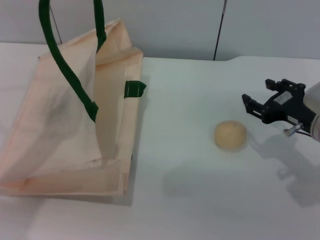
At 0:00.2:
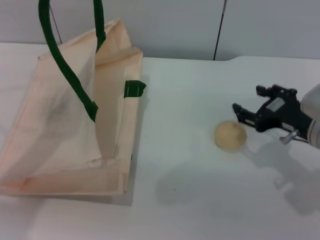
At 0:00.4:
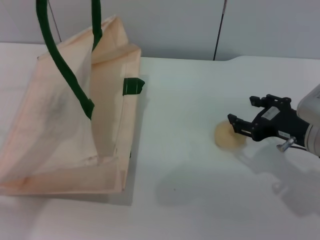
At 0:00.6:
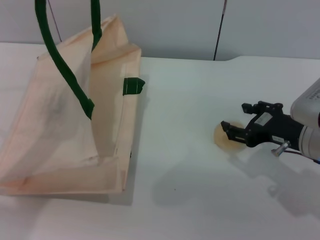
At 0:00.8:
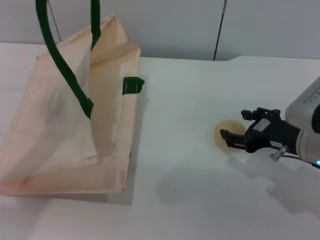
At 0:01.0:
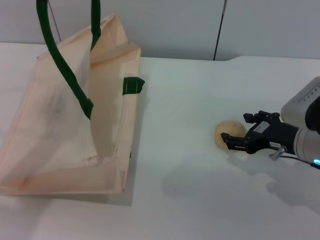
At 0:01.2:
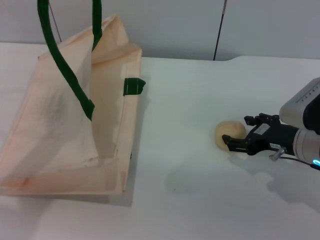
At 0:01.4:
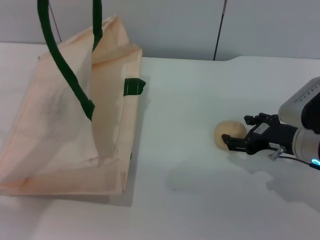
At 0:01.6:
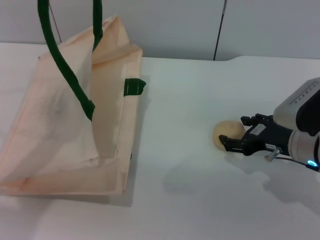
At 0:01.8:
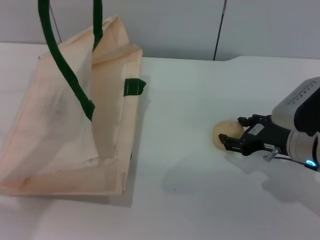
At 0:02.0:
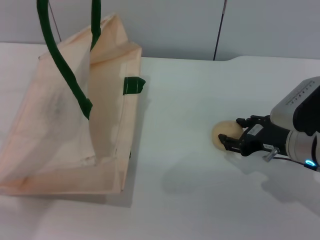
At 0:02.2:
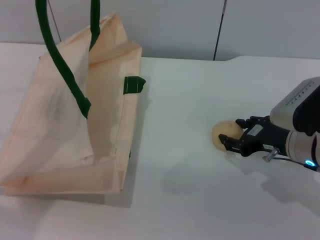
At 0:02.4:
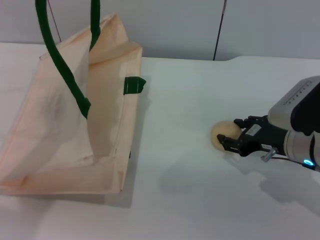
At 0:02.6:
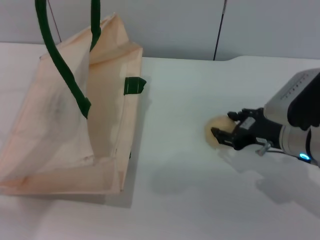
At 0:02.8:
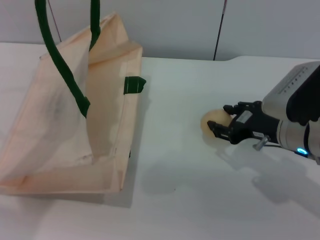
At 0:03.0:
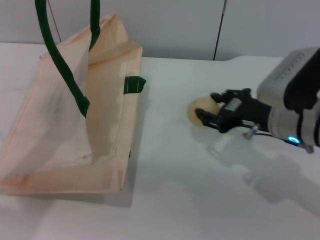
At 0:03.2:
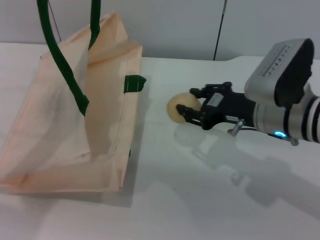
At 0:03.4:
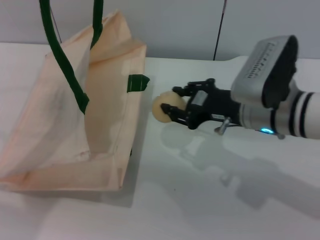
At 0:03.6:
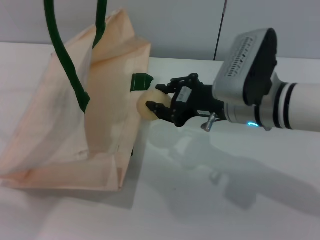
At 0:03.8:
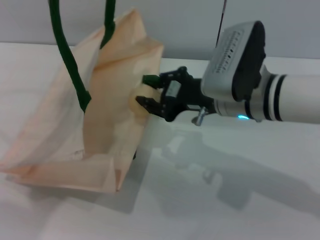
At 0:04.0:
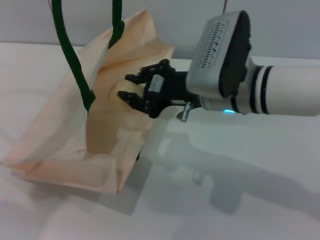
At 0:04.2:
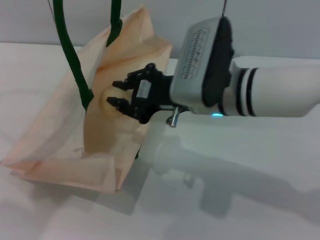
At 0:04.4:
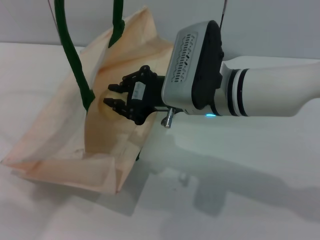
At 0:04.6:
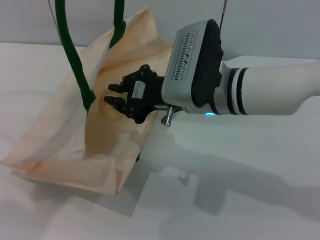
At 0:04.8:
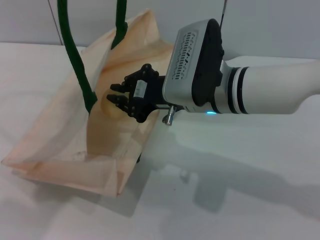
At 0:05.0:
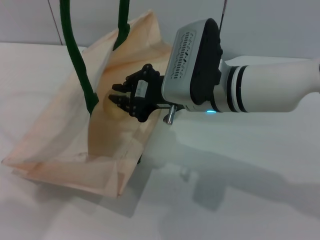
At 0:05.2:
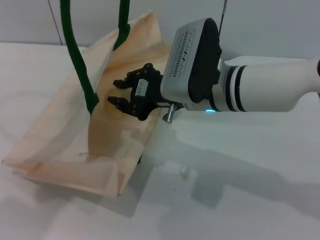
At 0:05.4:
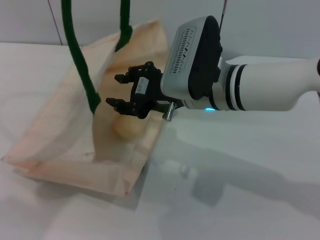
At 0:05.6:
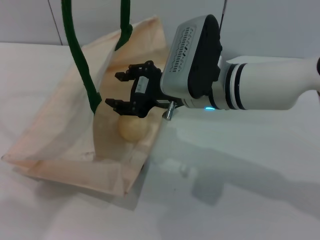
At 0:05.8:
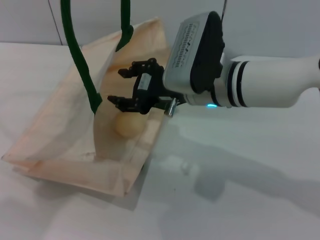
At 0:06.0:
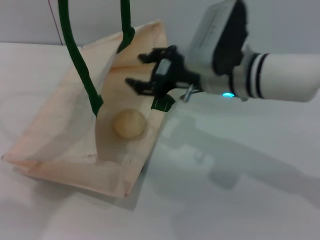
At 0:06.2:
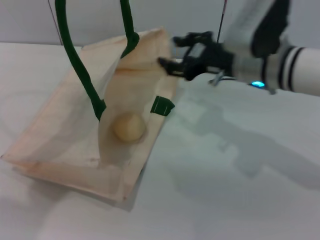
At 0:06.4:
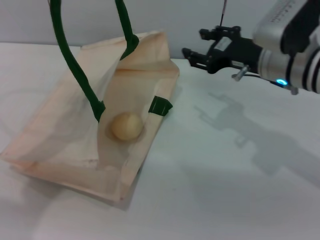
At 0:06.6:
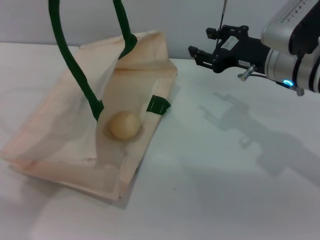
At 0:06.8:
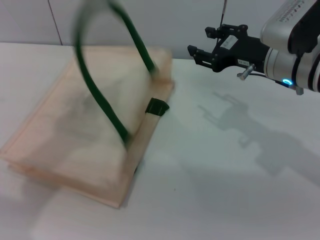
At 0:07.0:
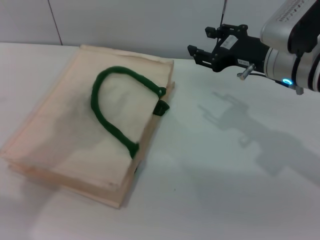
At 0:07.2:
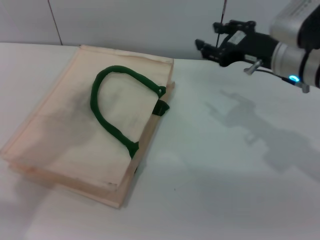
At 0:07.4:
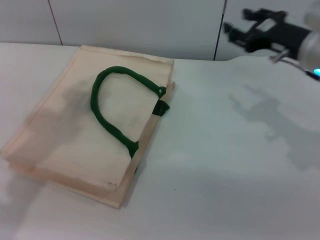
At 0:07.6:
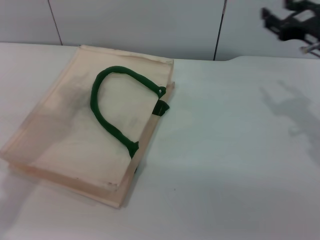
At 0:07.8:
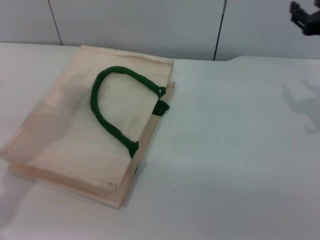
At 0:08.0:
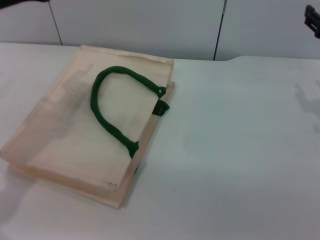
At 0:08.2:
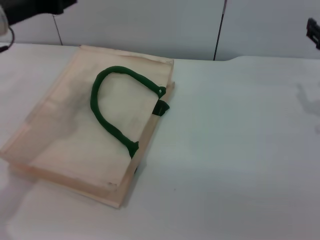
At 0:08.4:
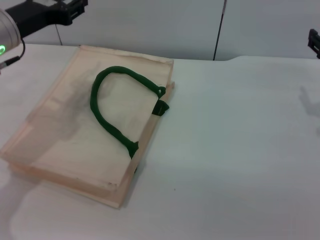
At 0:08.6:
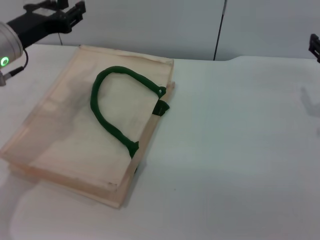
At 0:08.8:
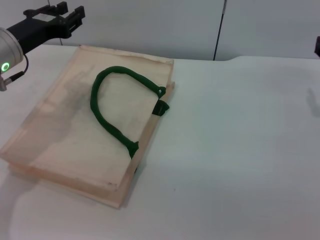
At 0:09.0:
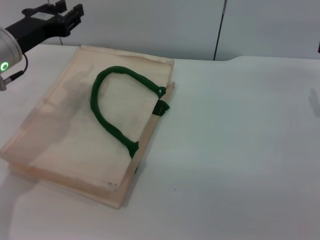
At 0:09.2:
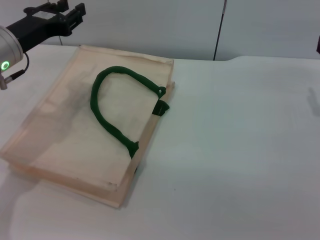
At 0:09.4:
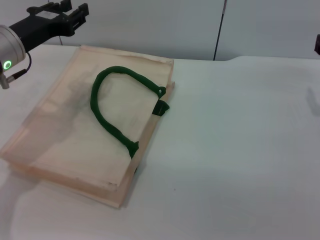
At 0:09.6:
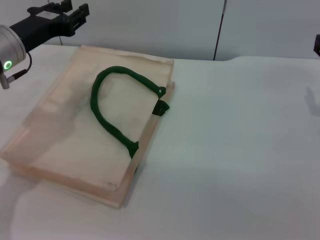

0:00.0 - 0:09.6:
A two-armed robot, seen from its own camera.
Task of the whole recording: pick up the egg yolk pastry from the table and place it in the white handbag.
Step, 0:00.0 - 0:03.0: Pick up the egg yolk pastry with the right gripper.
Step, 0:03.2 - 0:06.4: Place the egg yolk pastry into the woven bag with the right gripper.
Step, 0:06.6 - 0:08.6: Lower the woven bag with the left gripper to close it.
0:00.0 - 0:01.6: The grippers make only small movements.
0:01.6 - 0:03.2: The right gripper shifts some 5 cm to the left, and closes up.
0:03.2 - 0:04.8: The right gripper goes roughly 10 cm to the left, and closes up.
0:04.8 - 0:06.4: The right gripper travels to the right by roughly 10 cm, and opens its fingers.
0:06.4 - 0:08.0: The right gripper is displaced to the right by roughly 10 cm; the left gripper travels downward by roughly 10 cm, and opens its fingers.
0:08.0 - 0:09.6: The left gripper goes about 10 cm downward.

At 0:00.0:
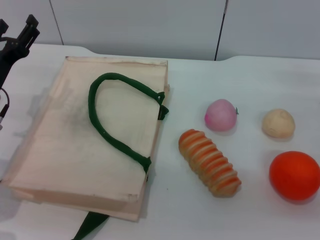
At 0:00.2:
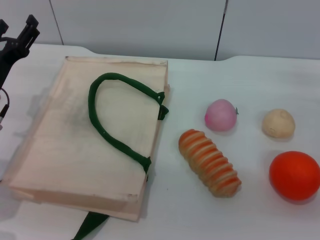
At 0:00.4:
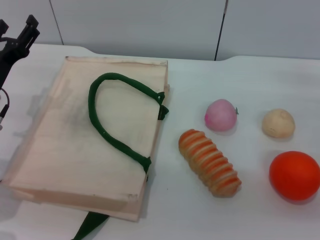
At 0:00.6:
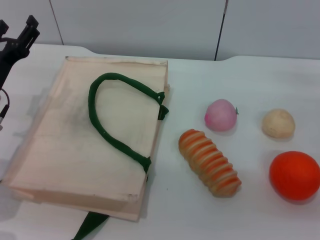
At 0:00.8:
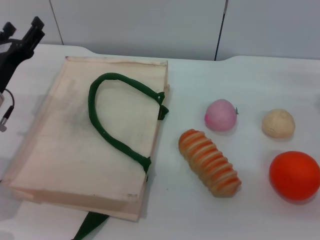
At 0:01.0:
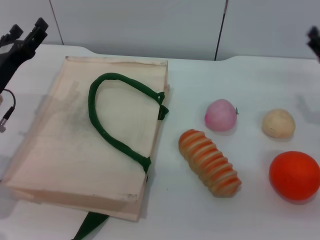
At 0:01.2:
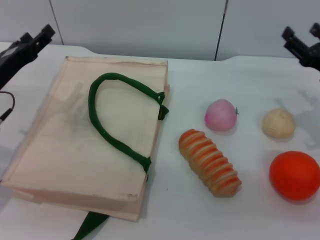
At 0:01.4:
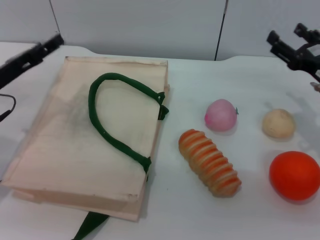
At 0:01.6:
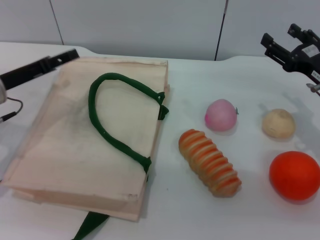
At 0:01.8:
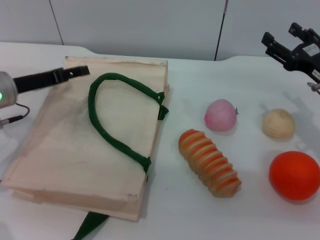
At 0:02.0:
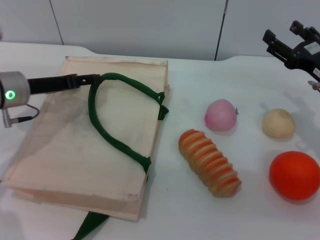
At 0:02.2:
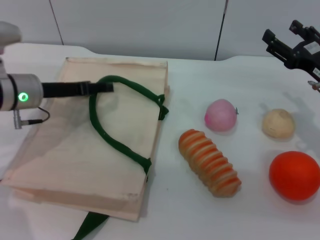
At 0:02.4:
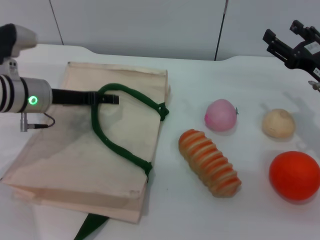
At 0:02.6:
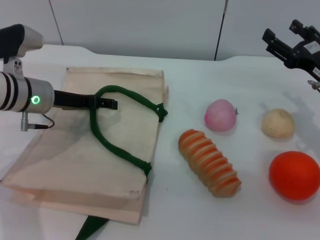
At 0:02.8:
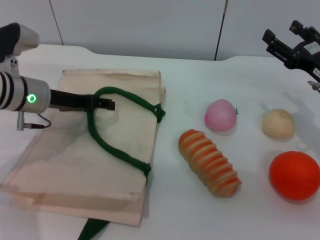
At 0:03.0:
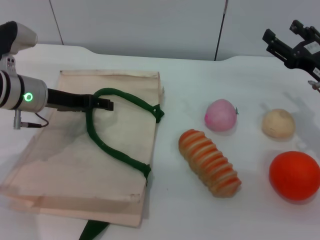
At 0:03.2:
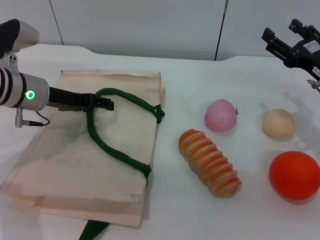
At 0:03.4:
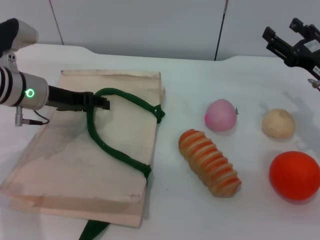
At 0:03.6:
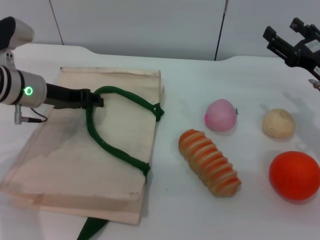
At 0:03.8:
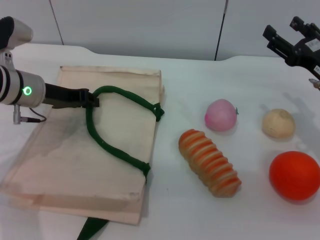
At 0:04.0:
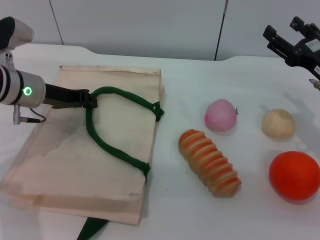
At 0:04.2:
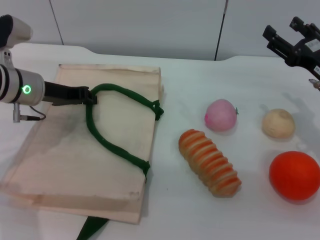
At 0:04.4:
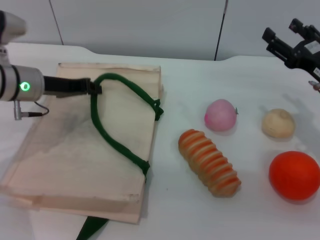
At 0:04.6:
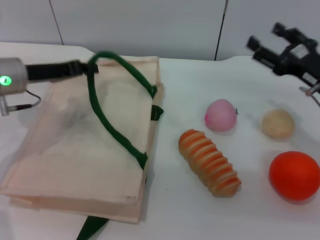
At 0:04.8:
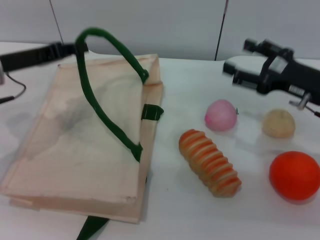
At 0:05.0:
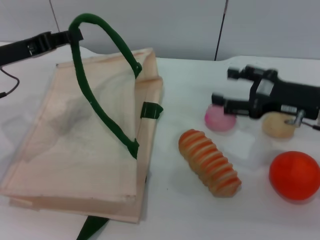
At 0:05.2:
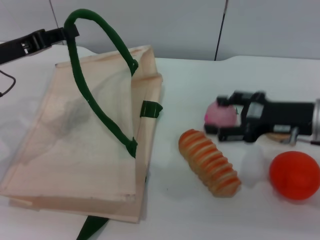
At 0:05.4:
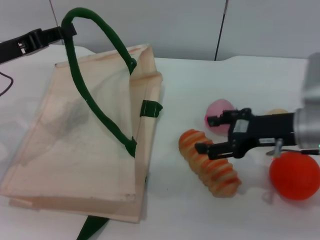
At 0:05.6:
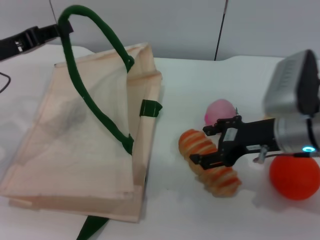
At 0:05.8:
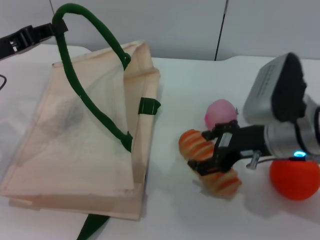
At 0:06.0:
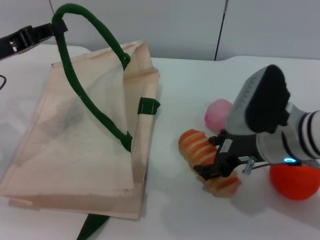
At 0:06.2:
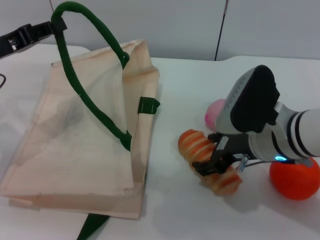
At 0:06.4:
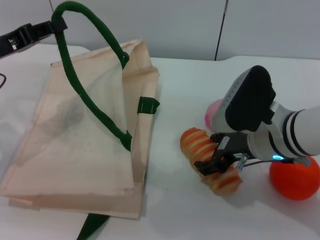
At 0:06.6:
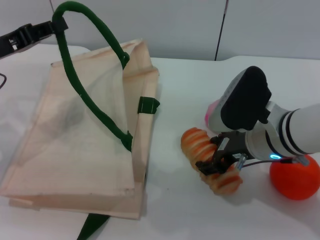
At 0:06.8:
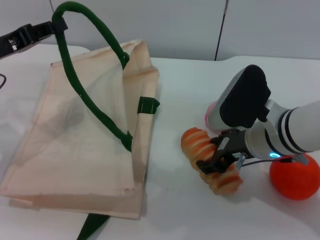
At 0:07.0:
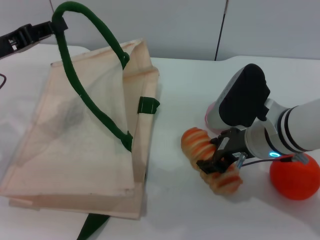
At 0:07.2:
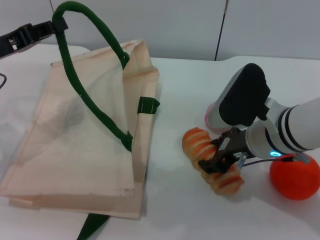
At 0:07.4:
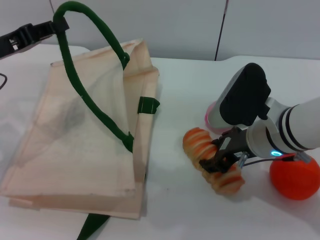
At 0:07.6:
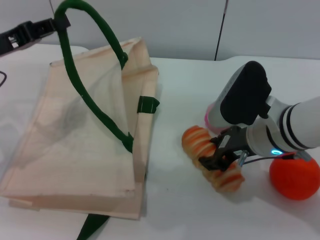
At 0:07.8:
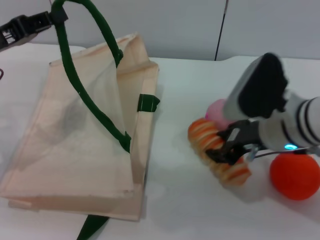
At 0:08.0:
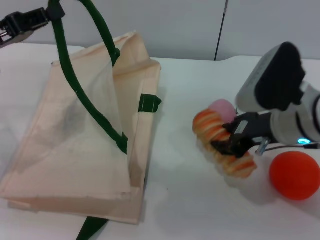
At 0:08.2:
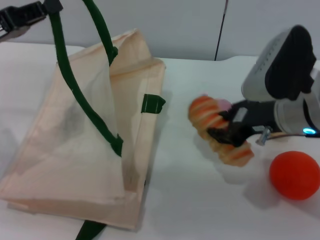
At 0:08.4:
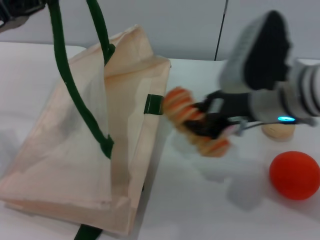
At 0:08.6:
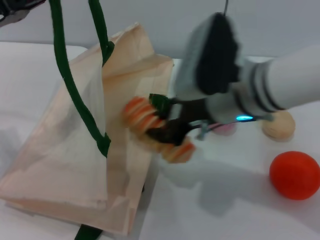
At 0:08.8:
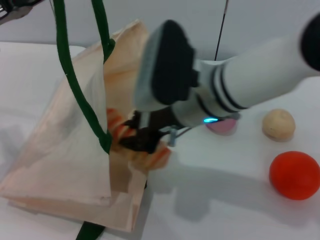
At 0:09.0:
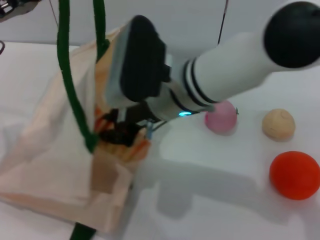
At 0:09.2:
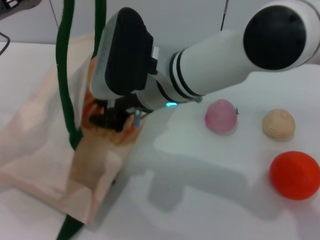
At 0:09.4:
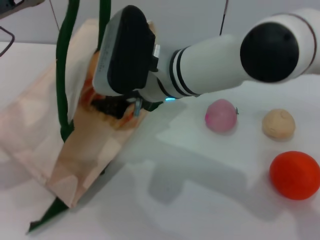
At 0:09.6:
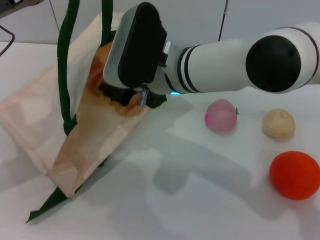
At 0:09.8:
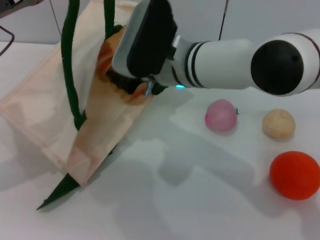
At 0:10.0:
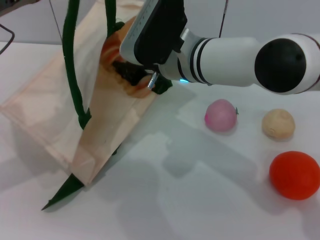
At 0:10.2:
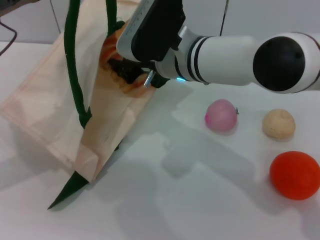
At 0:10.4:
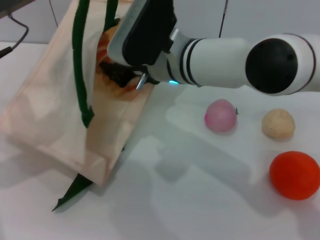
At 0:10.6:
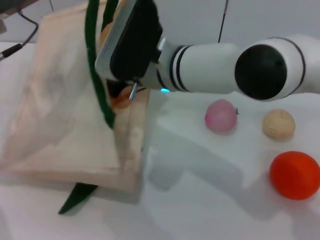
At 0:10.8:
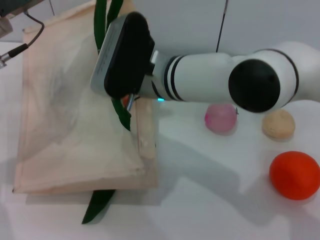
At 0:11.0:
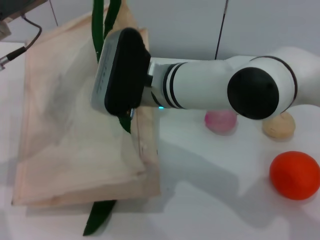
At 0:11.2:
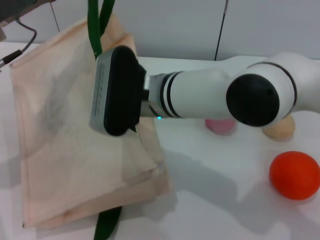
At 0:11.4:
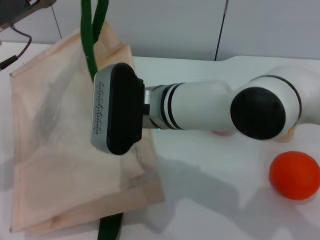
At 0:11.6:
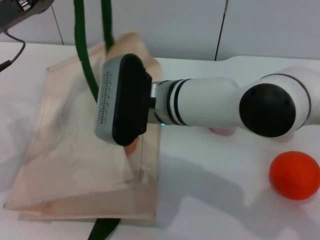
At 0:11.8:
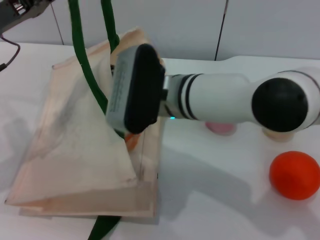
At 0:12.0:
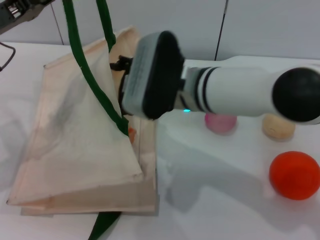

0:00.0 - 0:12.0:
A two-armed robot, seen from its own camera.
Task of the whole recording: pick up the bread and egg yolk pastry from the table and place it in the white handbag.
Step, 0:00.0 - 0:04.4: Lift the woven bag with the left gripper to open it.
Step, 0:04.6 - 0:08.2: Pick up the bread with the right gripper.
0:01.6 - 0:03.0: The left gripper ends up approximately 5 cm from where it was.
0:03.0 - 0:04.4: The left gripper closes its fingers.
0:04.4 - 0:06.0: The left gripper travels to the left and backward by approximately 10 cm; the right gripper heads to the left, covering approximately 10 cm.
0:06.0 - 0:07.6: The right gripper closes up.
0:07.6 - 0:09.0: The right gripper heads to the left and upward, covering about 15 cm, and closes its fingers.
0:09.0 - 0:10.4: The right gripper is displaced forward by approximately 5 cm.
0:10.4 - 0:12.0: The right gripper opens.
